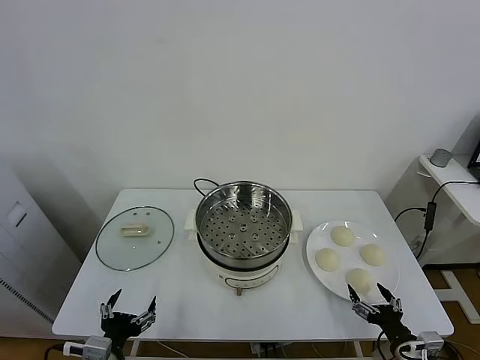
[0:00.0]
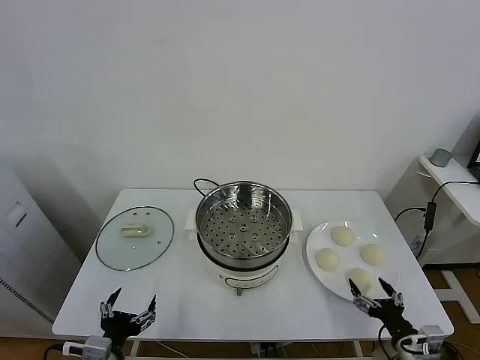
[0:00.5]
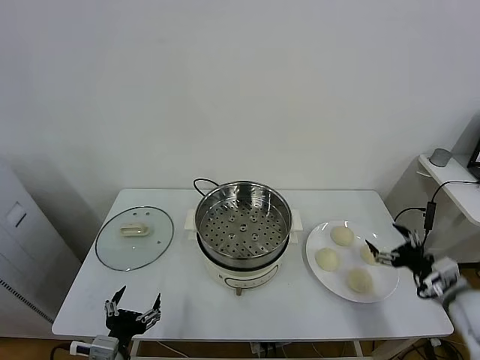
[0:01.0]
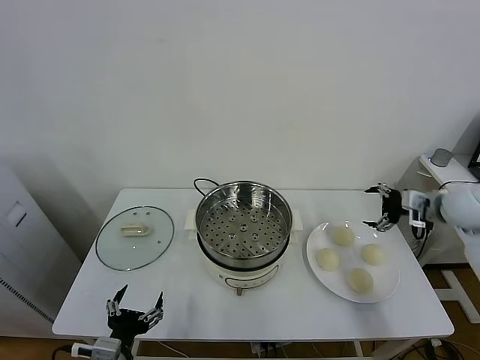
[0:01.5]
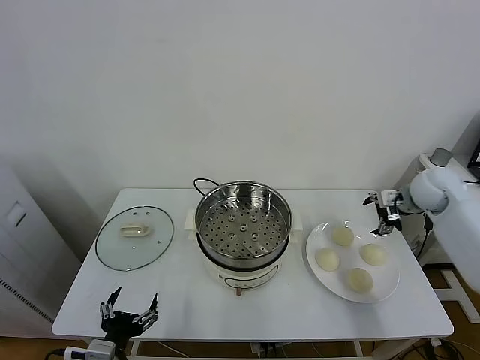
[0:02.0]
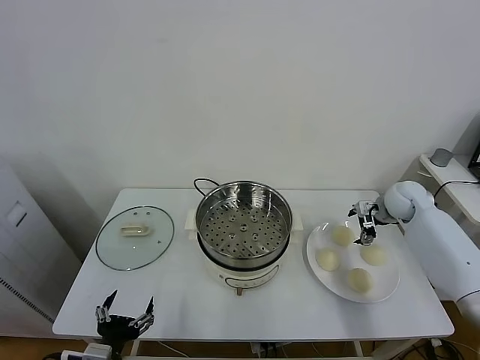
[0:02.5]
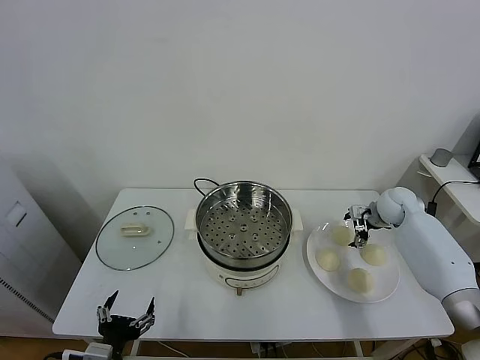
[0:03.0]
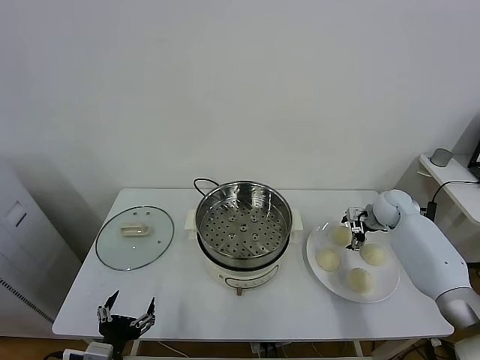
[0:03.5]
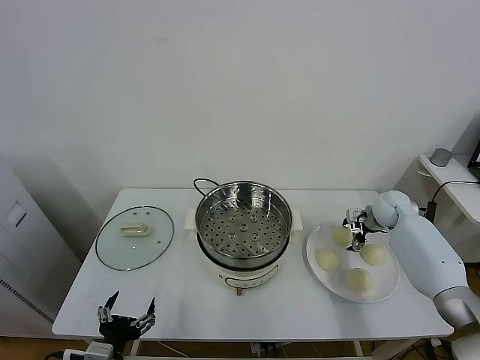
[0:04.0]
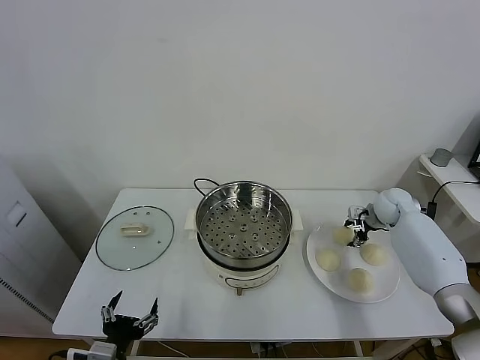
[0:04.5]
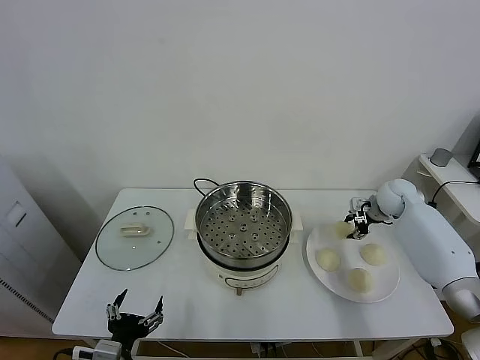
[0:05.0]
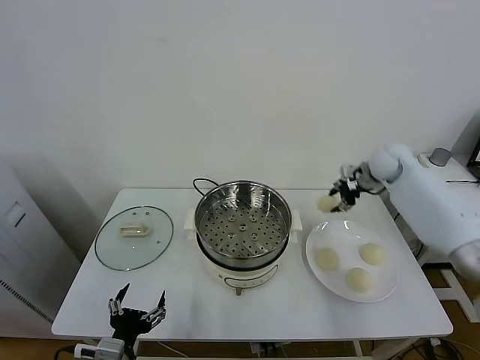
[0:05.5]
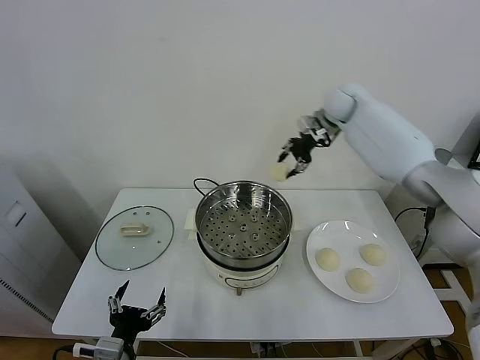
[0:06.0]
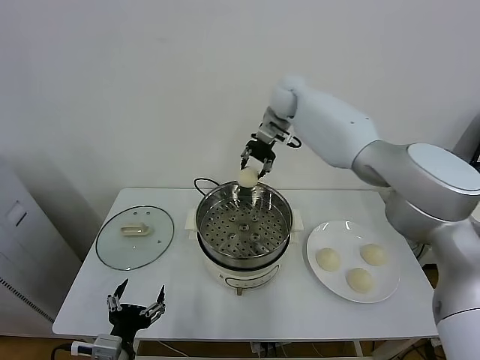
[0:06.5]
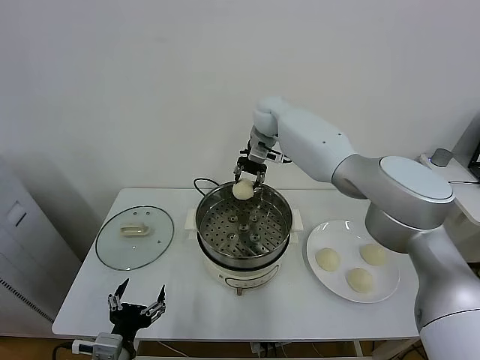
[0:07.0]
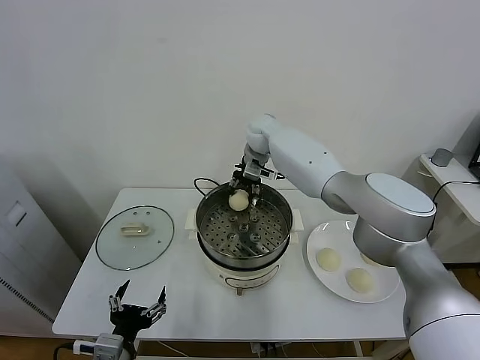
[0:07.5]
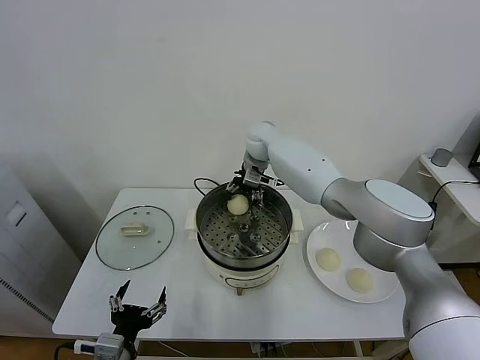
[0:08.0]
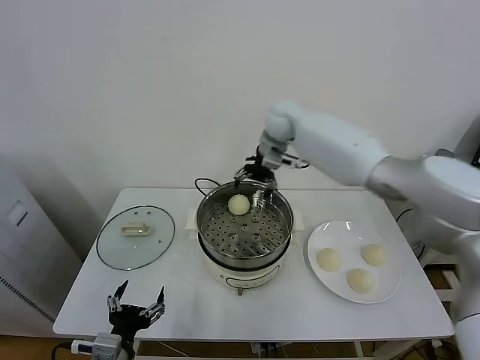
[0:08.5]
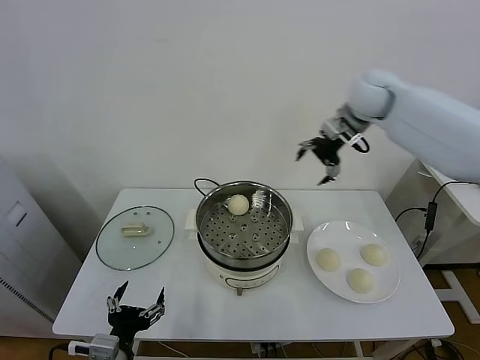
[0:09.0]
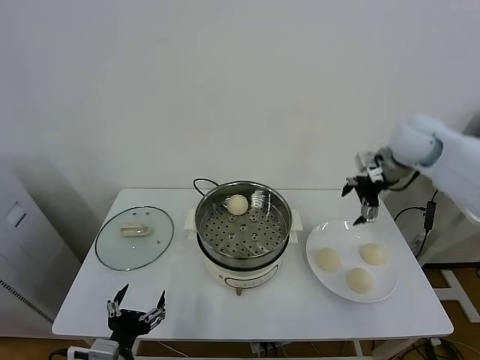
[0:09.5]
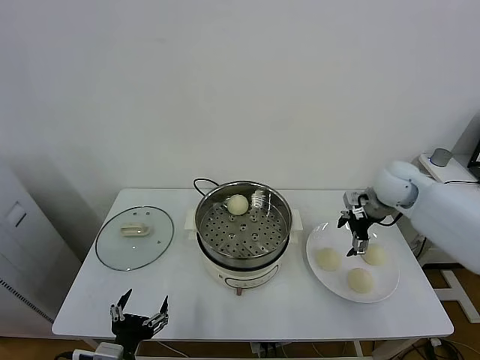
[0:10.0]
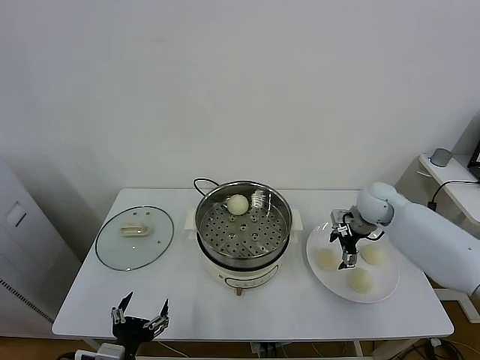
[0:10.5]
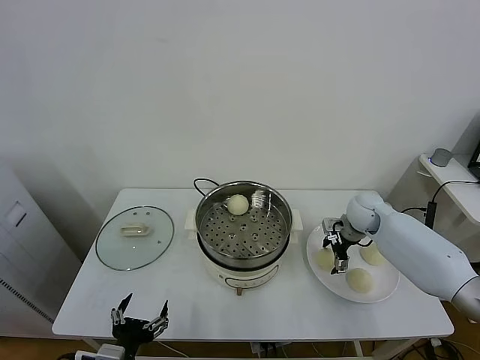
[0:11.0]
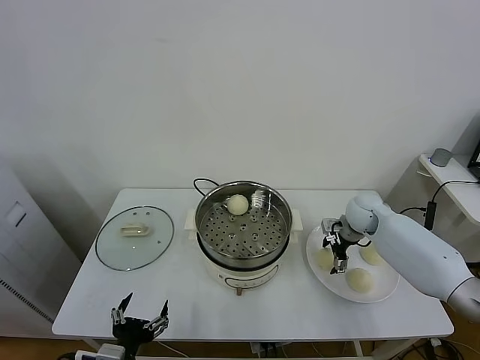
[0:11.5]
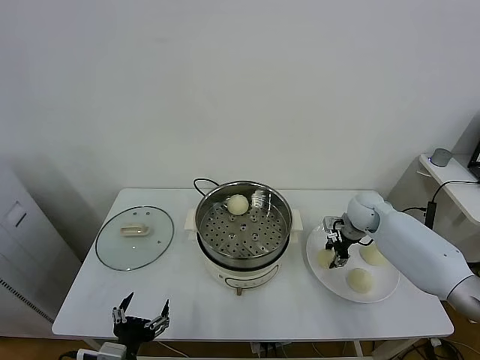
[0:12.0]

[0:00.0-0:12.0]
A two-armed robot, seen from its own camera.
Task of the whole recording: take steamed baozi put them in steamer.
Step, 0:00.0 to 0:04.0: Grasp the baozi in the plate with right gripper.
Step, 0:04.5 to 0:08.0: Place the baozi on the steamer with right gripper.
0:02.0 to 0:04.0: The right gripper moves downward, some 10 cm.
0:04.0 to 0:06.0: The right gripper goes approximately 35 cm upward, to the left and forward, and closes up.
0:06.0 to 0:08.0: The right gripper is displaced to the left and downward by approximately 20 cm, and opens.
0:08.0 to 0:10.0: The right gripper goes about 30 cm to the right and backward.
0:10.0 to 0:12.0: The right gripper moves downward, some 10 cm, and closes its fingers.

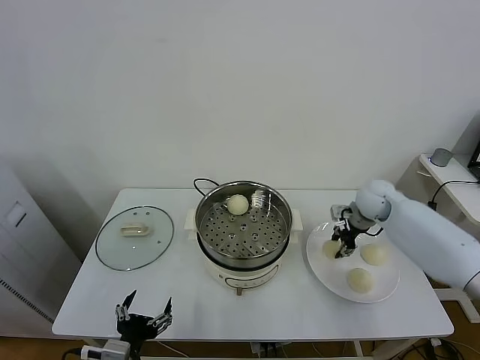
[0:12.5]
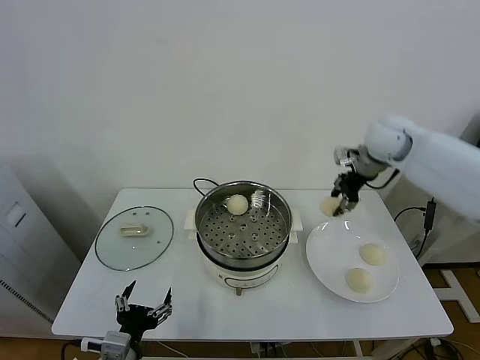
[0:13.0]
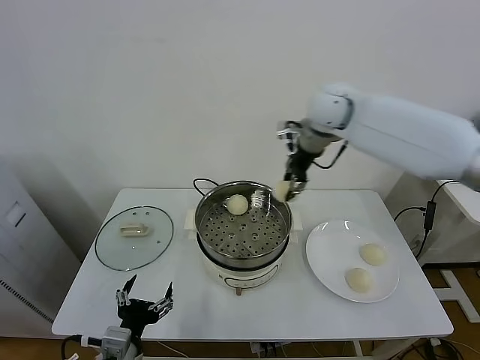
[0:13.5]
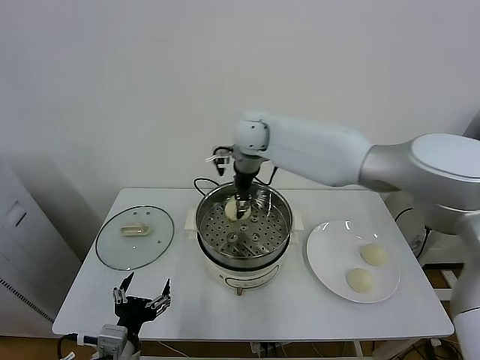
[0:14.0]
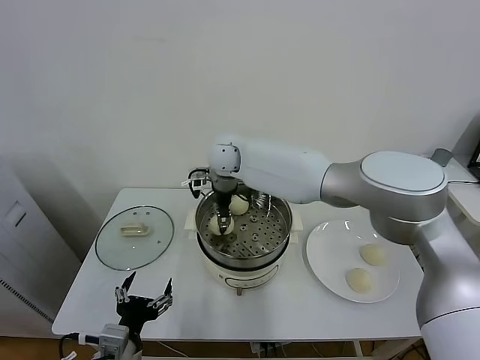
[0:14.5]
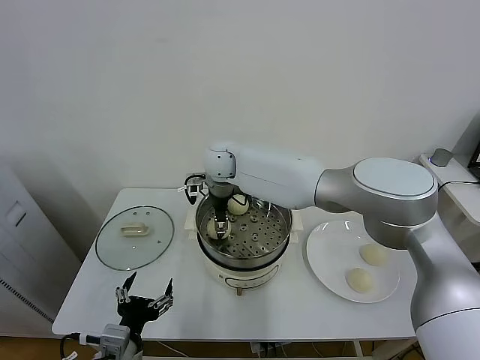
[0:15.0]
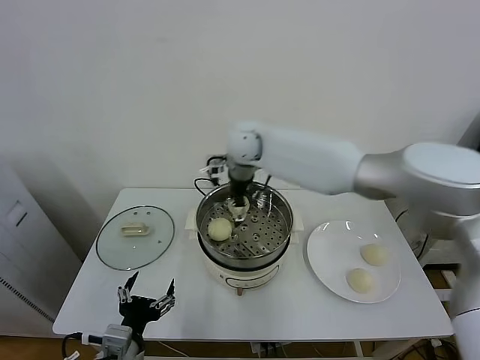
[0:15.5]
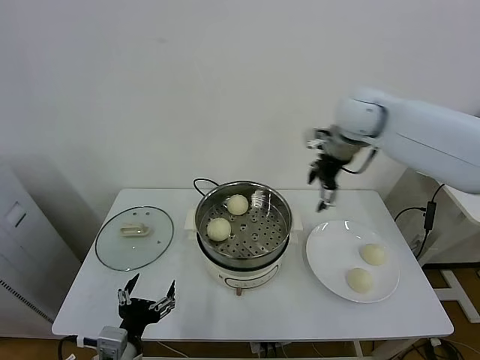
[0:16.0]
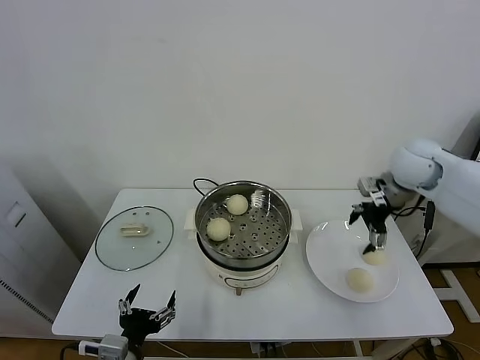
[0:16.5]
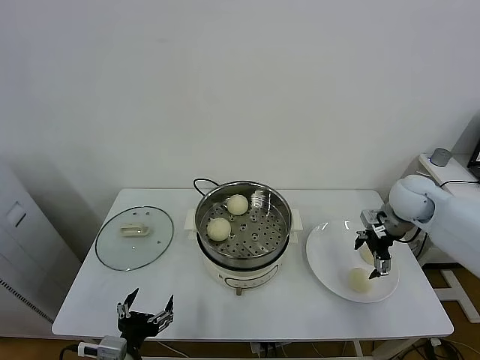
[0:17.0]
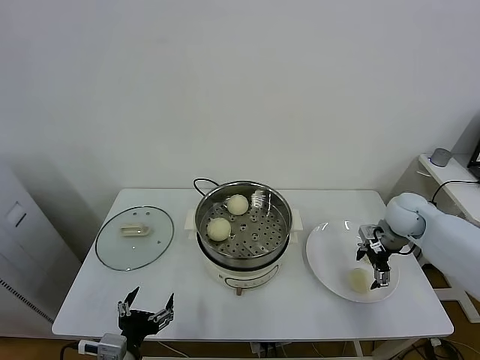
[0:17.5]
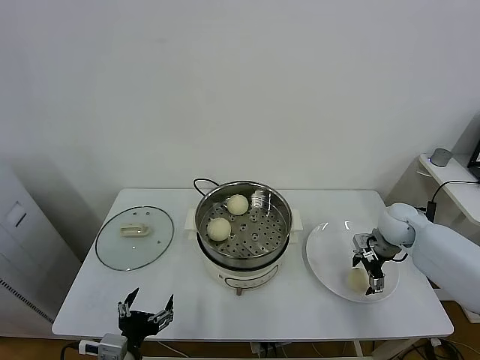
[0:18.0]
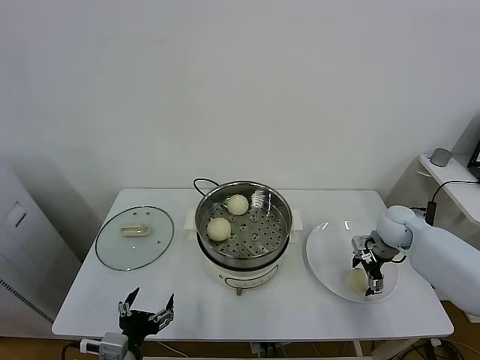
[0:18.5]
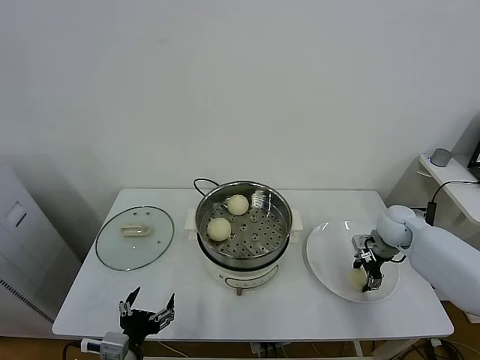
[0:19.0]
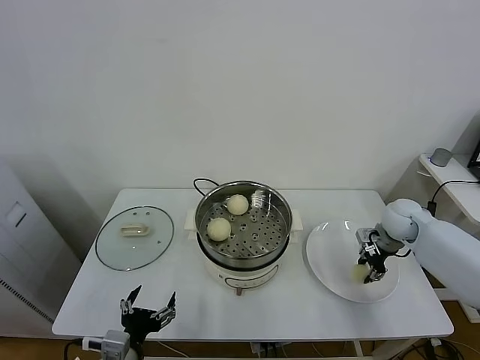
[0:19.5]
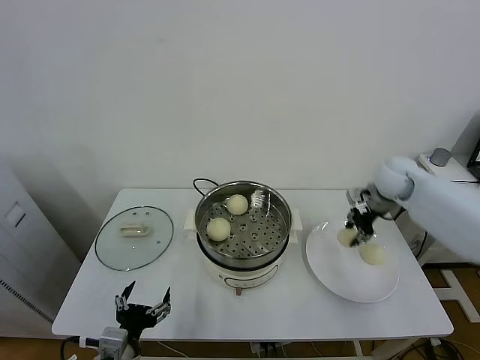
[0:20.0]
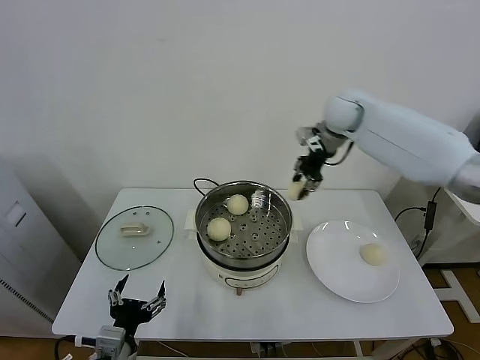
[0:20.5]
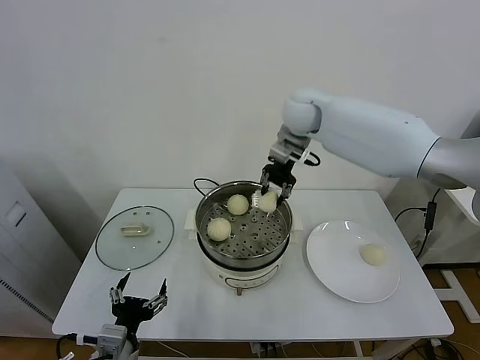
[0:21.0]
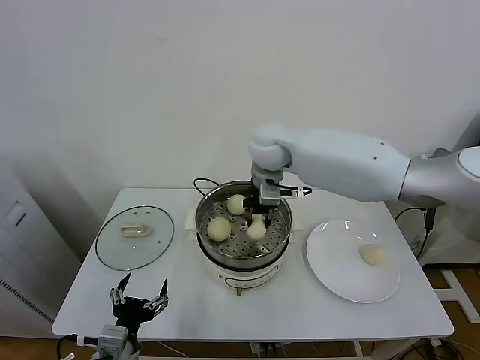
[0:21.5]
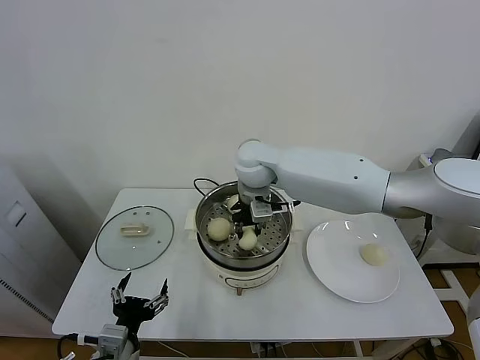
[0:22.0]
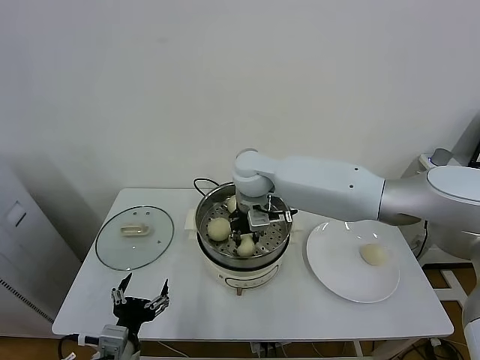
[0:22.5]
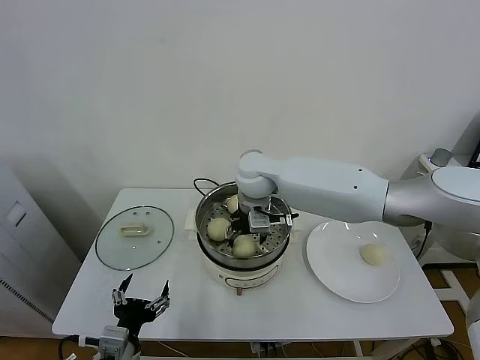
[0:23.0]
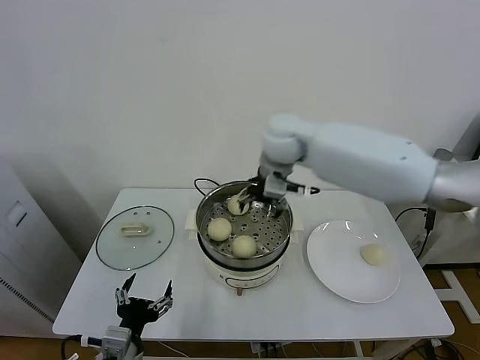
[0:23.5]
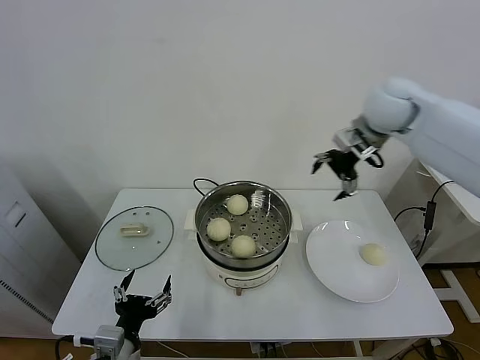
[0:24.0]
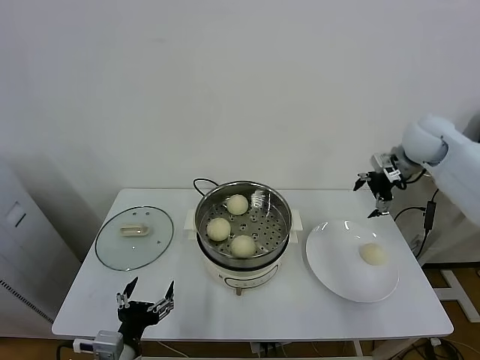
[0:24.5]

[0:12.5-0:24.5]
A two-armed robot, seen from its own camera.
Task of the whole recording: take steamed baozi put them in steamer.
Step, 0:12.5 to 0:15.5: Place the baozi on the steamer with right gripper.
Step, 0:16.0 to 0:19.0: Grasp the baozi in the plate with right gripper.
Step, 0:19.5 to 0:23.0: Place the baozi on the steamer with right gripper.
0:12.5 to 0:14.5: The right gripper goes some 40 cm to the left.
0:14.5 to 0:16.5: The right gripper moves to the right, about 40 cm, and opens.
0:16.5 to 0:18.5: The right gripper moves downward, approximately 20 cm.
0:18.5 to 0:20.5: The right gripper goes some 35 cm upward, to the left and forward, and closes its fingers.
0:20.5 to 0:22.5: The right gripper moves to the left, downward and backward, approximately 25 cm.
0:22.5 to 0:24.5: The right gripper travels to the right by approximately 40 cm, and opens its fingers.

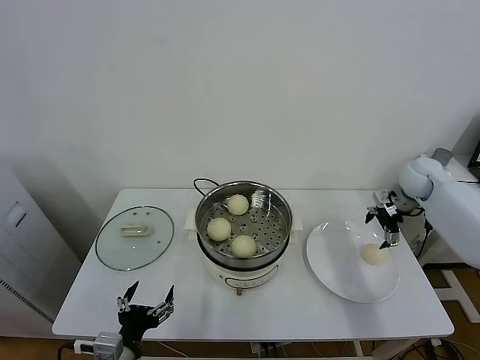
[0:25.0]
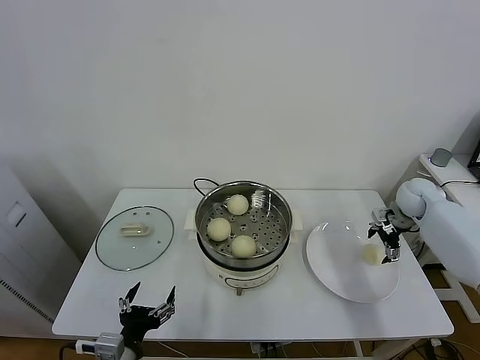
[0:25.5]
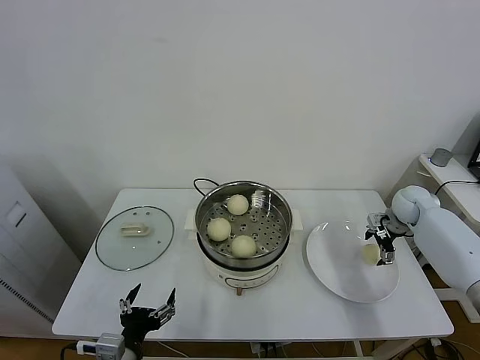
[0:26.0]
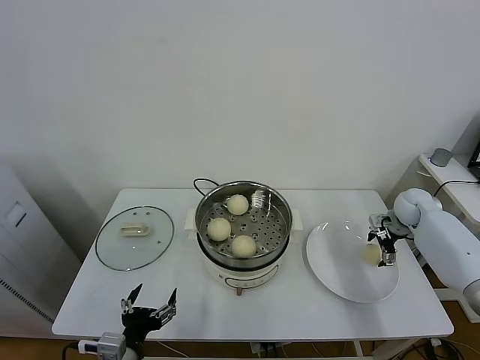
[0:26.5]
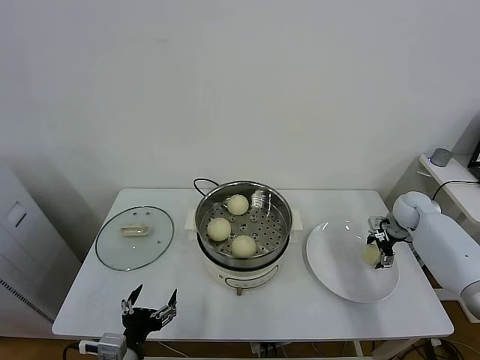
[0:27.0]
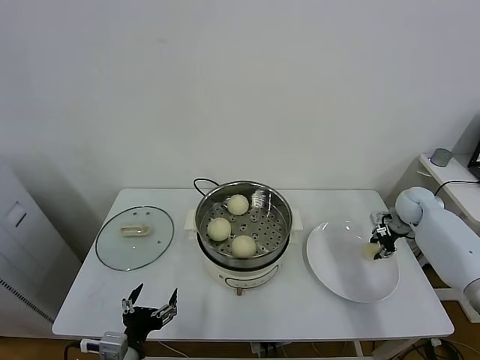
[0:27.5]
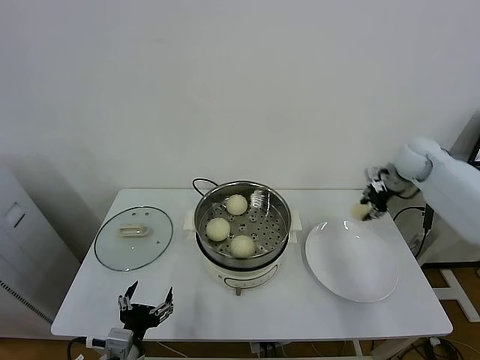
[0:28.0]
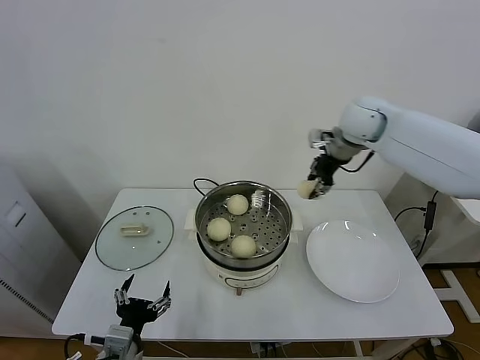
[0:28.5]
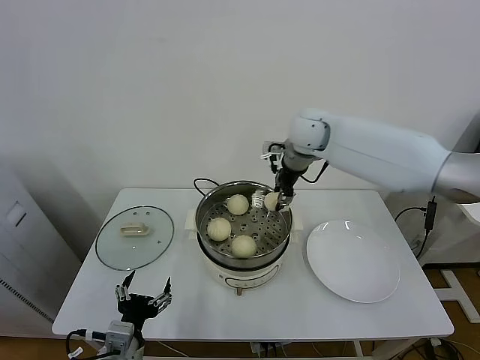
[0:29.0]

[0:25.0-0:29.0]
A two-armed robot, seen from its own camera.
Task of the whole recording: take steamed baozi put them in steamer.
Step, 0:25.0 to 0:27.5: Grasp the baozi in the plate with right gripper.
0:25.0 to 0:27.0: The right gripper shifts some 10 cm downward.
0:27.0 to 0:29.0: The right gripper heads to the left and upward, covering about 40 cm, and closes.
